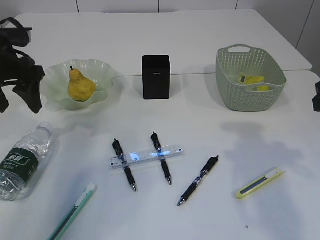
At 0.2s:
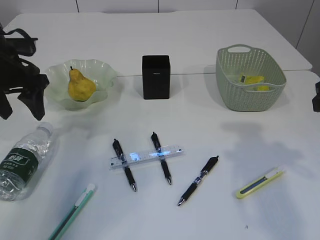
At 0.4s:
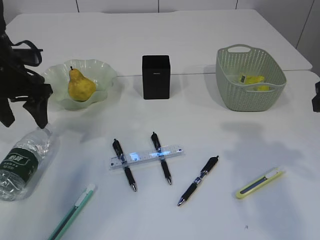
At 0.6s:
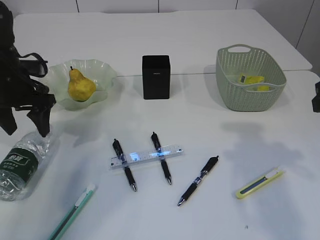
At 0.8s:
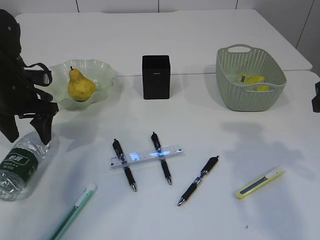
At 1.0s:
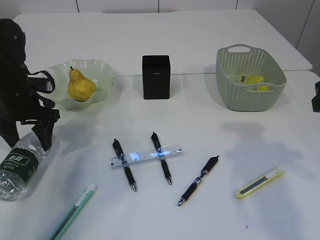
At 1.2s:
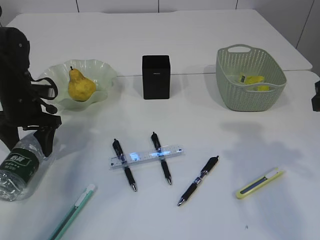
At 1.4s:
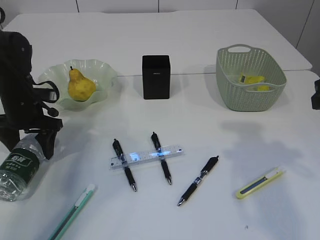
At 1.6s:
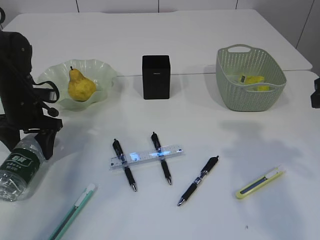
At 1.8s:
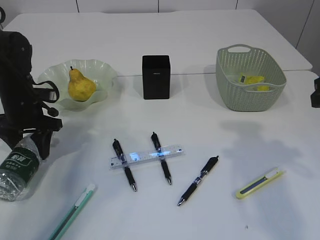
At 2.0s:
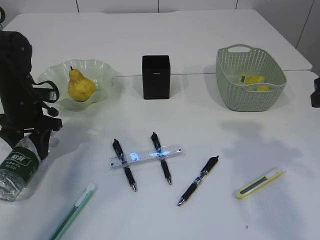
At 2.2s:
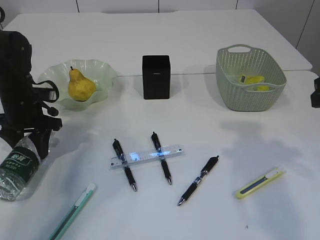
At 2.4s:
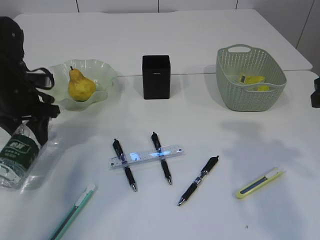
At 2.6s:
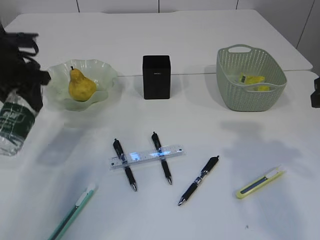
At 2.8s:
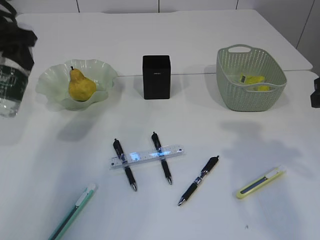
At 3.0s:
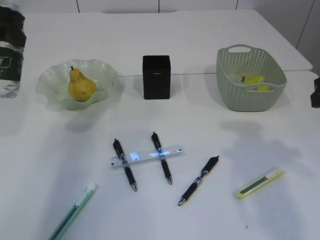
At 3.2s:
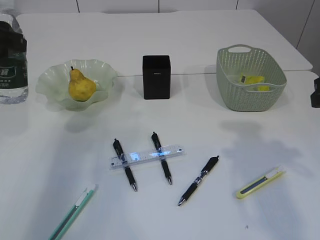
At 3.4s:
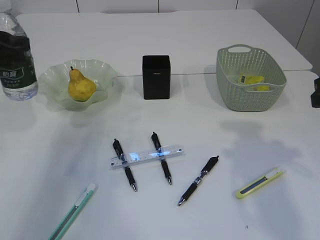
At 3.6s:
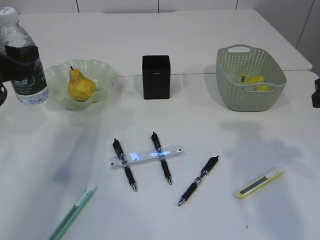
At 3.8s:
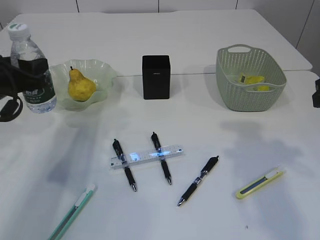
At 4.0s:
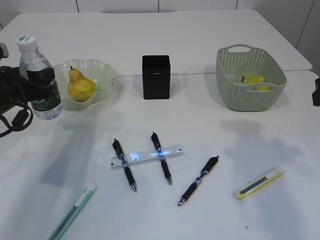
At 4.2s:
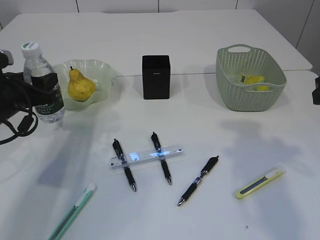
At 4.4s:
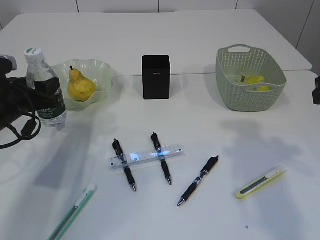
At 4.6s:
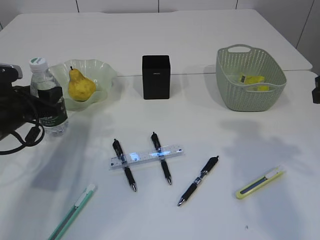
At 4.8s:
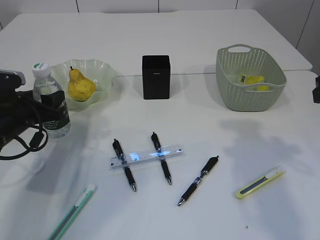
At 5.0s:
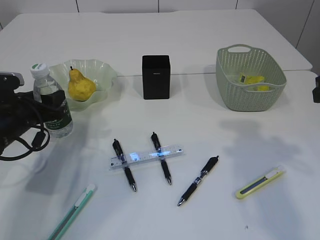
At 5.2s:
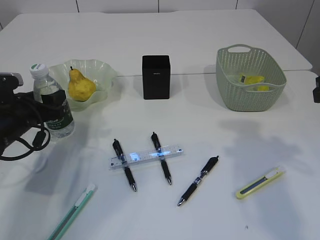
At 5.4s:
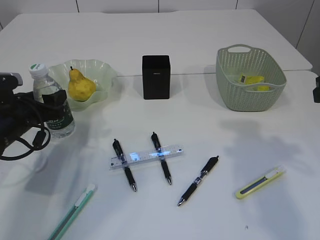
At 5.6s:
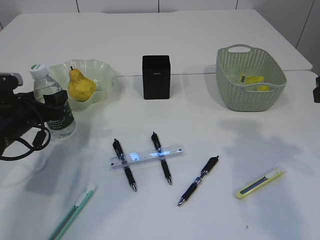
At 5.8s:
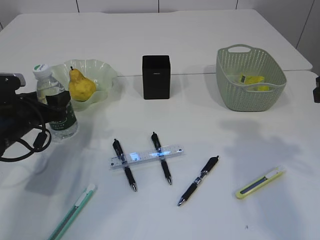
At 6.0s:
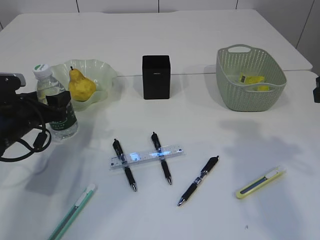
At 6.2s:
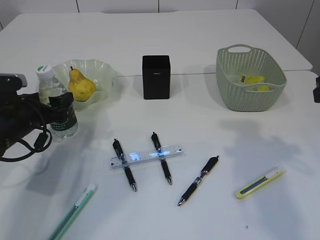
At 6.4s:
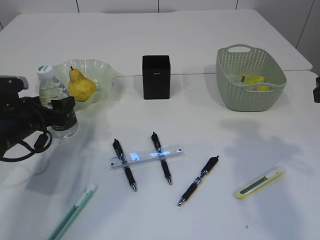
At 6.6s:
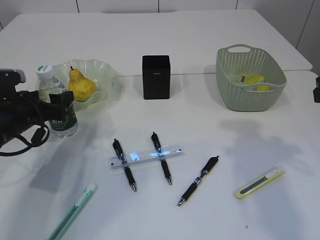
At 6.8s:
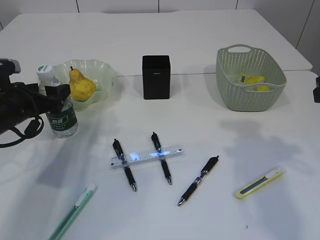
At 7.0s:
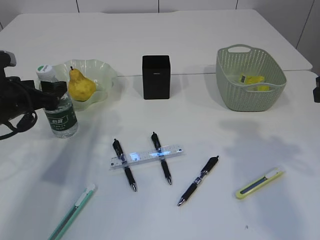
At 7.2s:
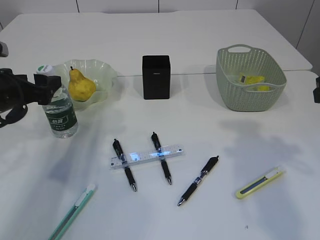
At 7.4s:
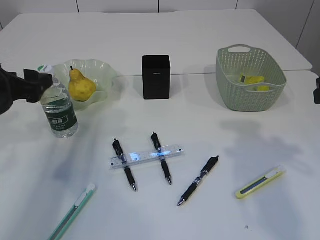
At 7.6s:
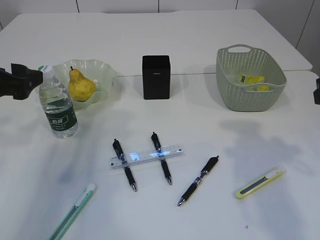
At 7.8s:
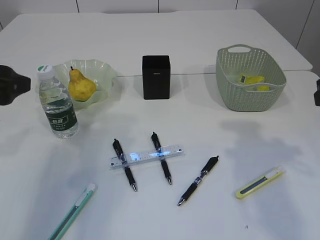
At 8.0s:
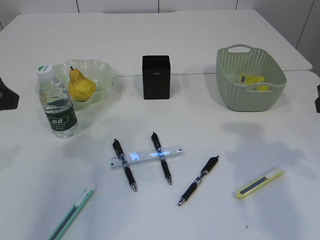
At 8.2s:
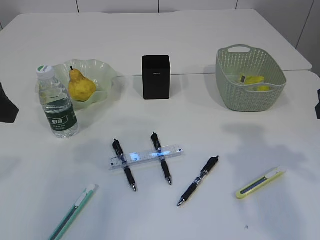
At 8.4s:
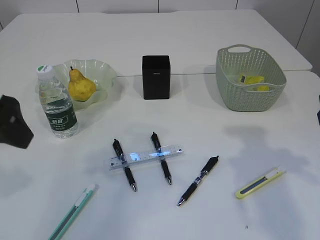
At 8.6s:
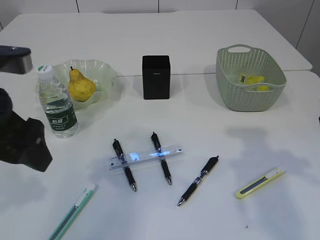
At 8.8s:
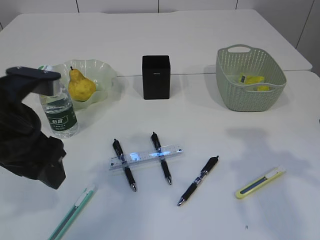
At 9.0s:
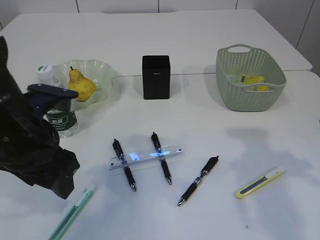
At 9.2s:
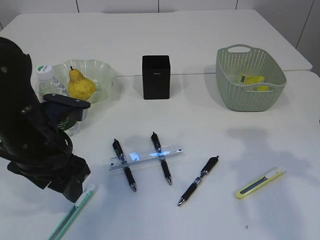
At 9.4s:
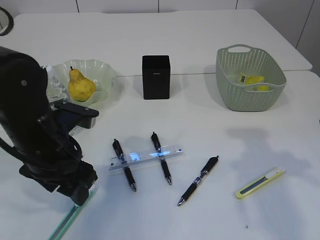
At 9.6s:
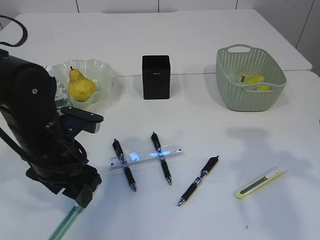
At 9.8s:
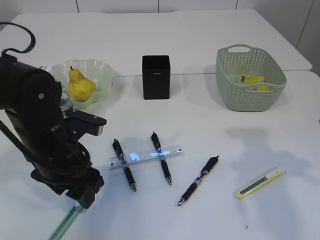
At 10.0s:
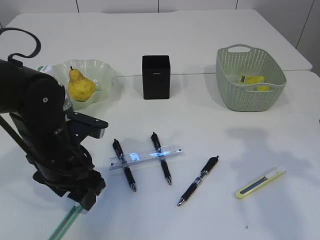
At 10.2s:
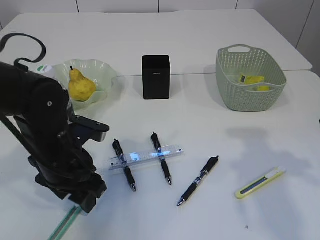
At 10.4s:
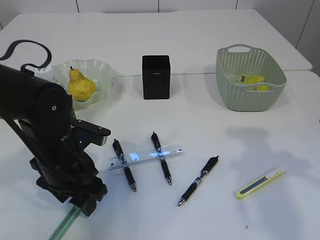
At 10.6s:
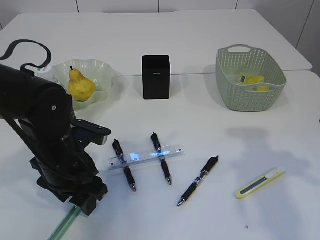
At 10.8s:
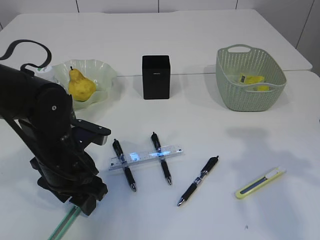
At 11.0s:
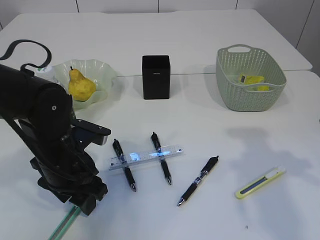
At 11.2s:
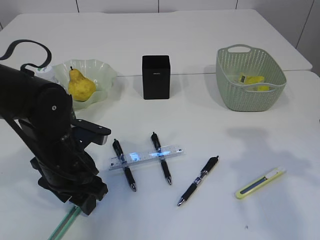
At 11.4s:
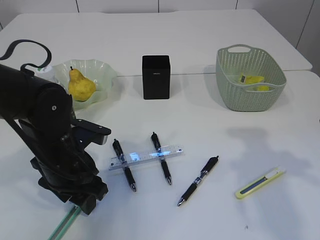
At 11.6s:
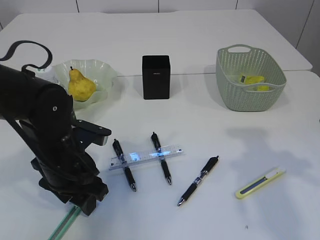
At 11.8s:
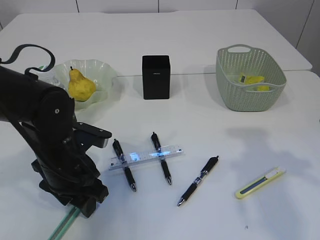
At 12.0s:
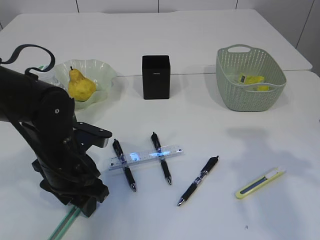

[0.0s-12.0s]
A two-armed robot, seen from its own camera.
Step, 0.0s to 2.4s: Pick up the bottle with the left arm.
Step, 2.6s to 7.8s: Place the bottle.
0.0s to 1.6s: The left gripper heads downward, covering about 15 cm.
1.6s to 3.0s: The left gripper travels upward by approximately 20 cm, and closes.
3.0s to 4.4s: The left gripper goes roughly 20 cm downward.
4.4s to 6.0s: The grippers move only a little.
6.0s to 7.6s: The left gripper is displaced upward by approximately 10 cm.
7.6s to 9.0s: The left gripper moves to the right and backward, approximately 10 cm.
9.0s to 10.4s: The left gripper is displaced downward by some 10 cm.
10.4s to 12.0s: Both grippers stay about where they are.

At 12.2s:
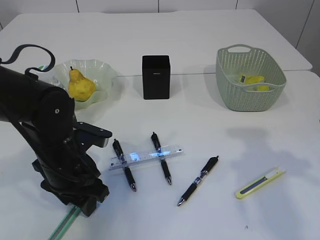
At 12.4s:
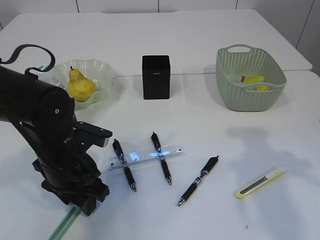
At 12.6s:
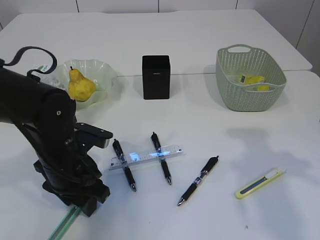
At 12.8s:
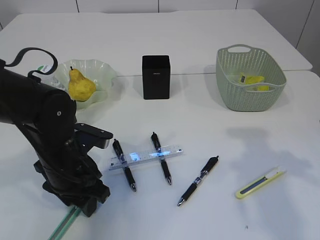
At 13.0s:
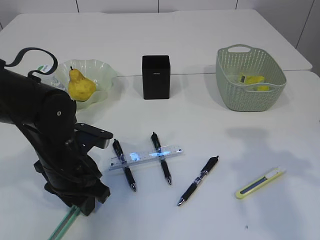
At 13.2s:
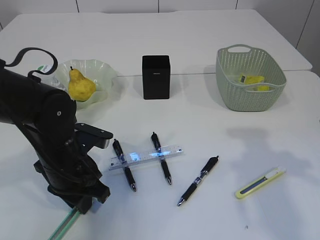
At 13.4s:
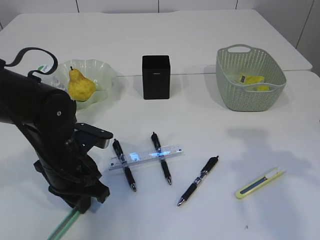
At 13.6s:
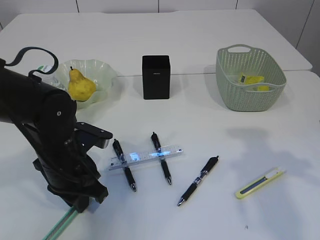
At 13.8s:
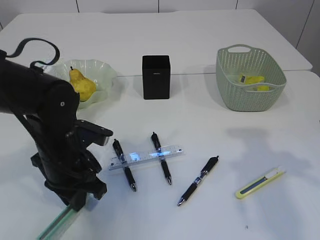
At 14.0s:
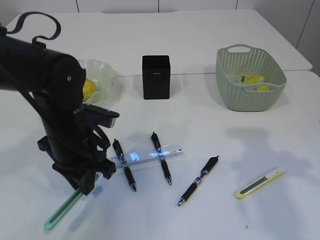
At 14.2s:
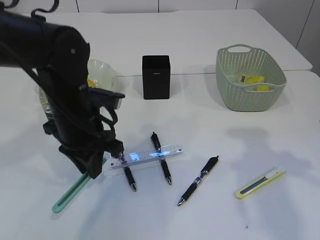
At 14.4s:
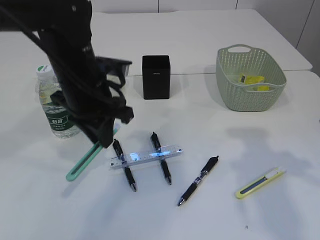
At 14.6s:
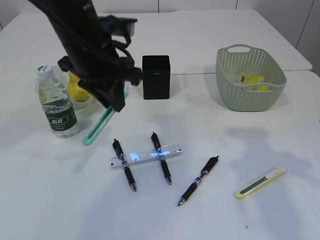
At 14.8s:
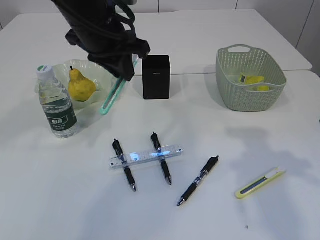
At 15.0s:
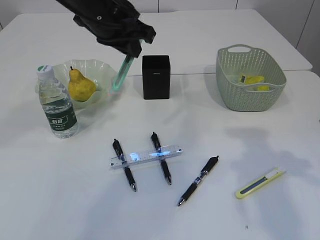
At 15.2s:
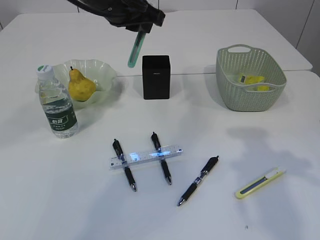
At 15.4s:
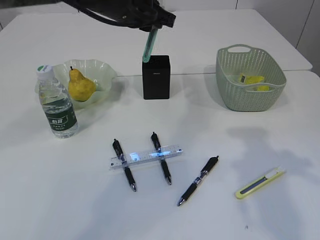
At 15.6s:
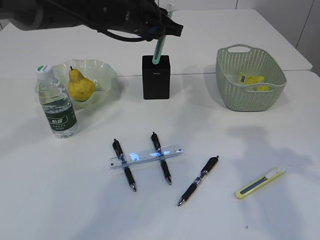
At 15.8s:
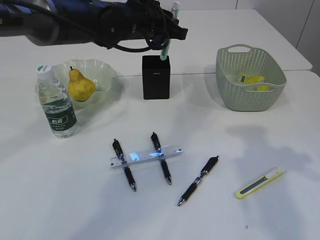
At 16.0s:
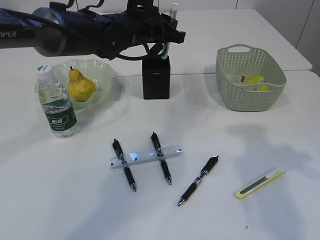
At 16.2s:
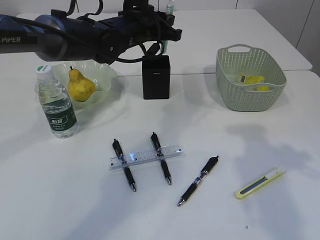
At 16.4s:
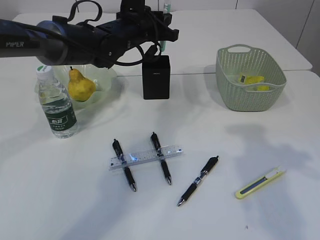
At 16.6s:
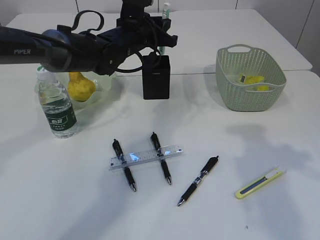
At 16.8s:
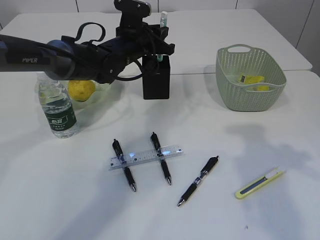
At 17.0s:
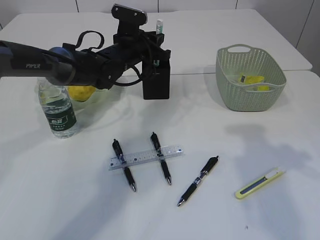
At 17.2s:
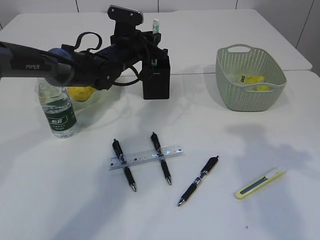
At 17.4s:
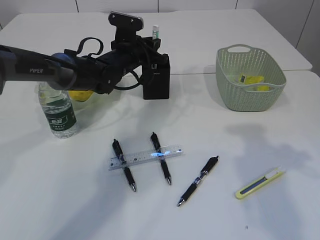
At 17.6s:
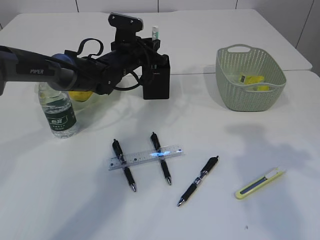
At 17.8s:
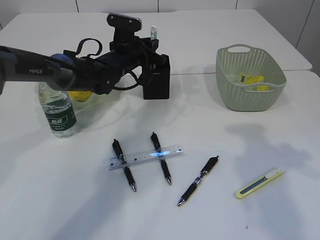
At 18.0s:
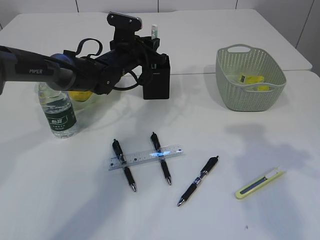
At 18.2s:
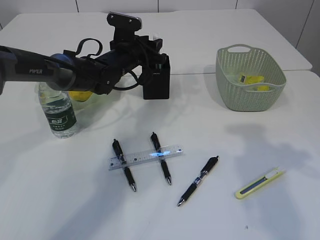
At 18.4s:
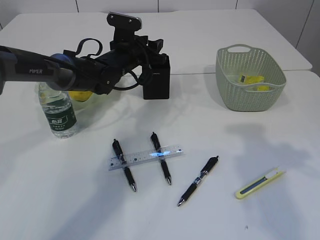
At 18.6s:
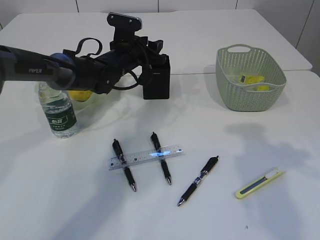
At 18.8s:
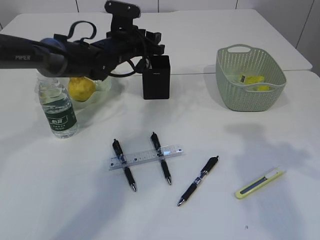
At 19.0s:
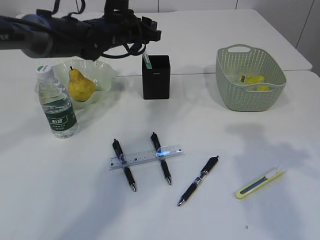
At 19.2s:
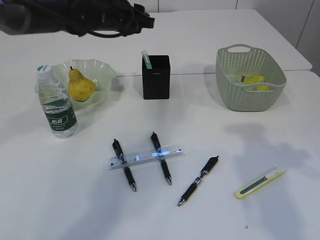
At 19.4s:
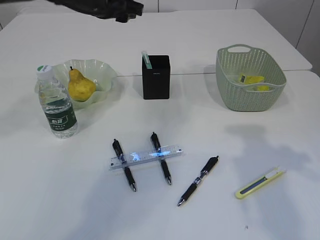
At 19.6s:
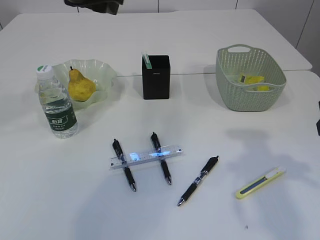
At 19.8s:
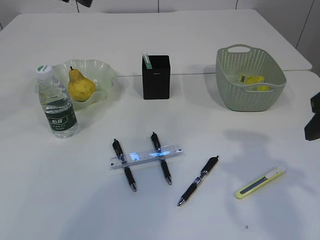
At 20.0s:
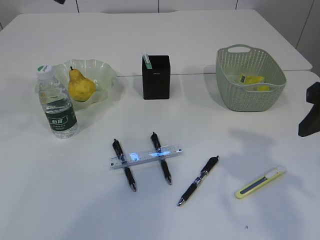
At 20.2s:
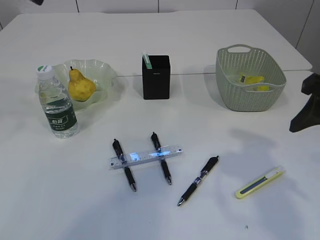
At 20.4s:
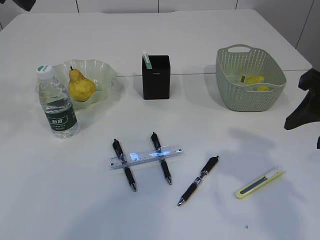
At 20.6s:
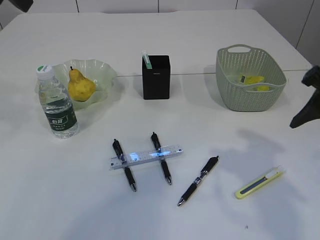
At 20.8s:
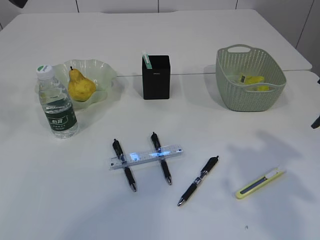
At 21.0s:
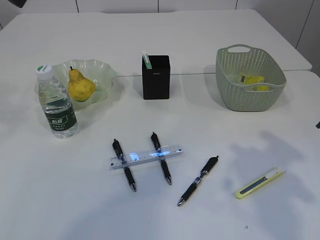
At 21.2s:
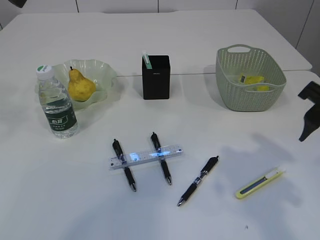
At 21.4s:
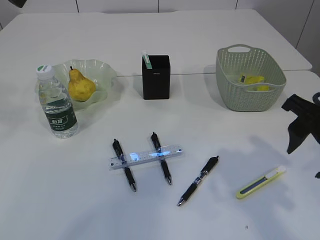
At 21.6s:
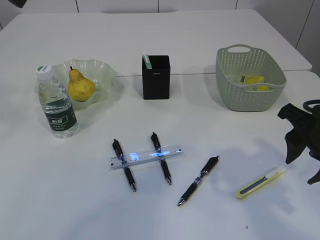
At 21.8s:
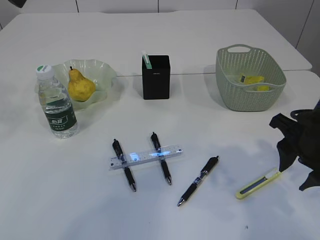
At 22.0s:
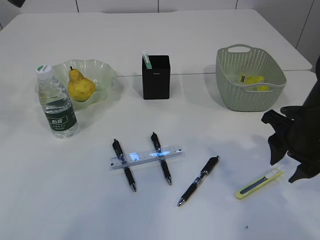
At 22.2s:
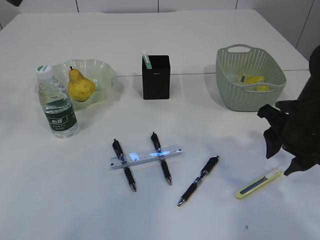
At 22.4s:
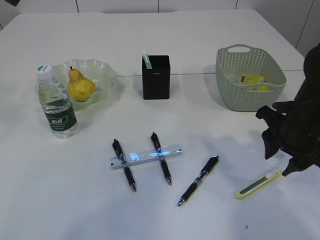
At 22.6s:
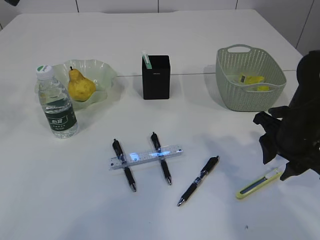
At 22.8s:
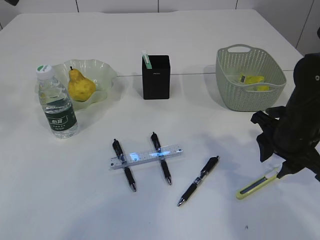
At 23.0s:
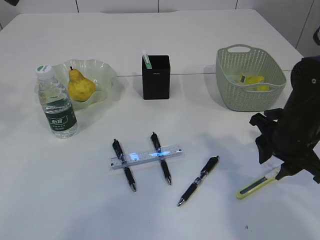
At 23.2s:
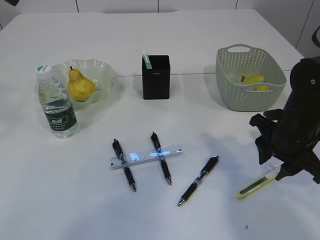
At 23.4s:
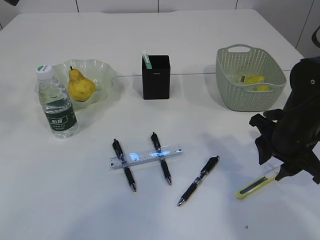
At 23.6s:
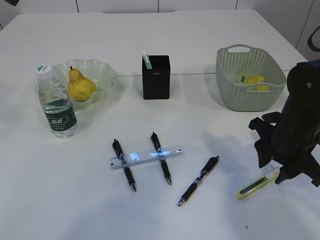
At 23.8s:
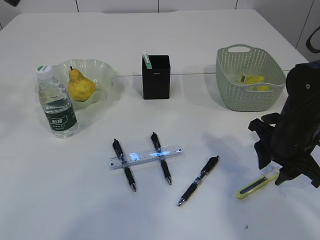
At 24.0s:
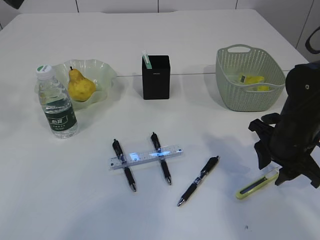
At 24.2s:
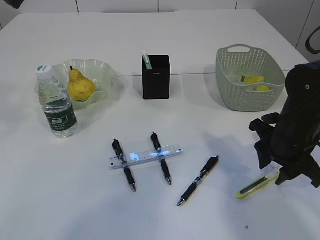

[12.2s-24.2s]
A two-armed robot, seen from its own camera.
Step, 14.2s to 19.0s: Place the blue knife into the pen holder.
12.2s to 13.8s: The left gripper closes.
13.8s to 15.2s: The left gripper is displaced upward and forward by about 25 cm.
15.2s to 16.6s: The left gripper shifts some 15 cm downward and forward.
16.6s to 18.2s: The left gripper shifts about 5 cm downward, and opens its fingers.
18.2s to 19.8s: The left gripper shifts roughly 25 cm upward and backward.
21.2s to 22.6s: The right gripper goes approximately 10 cm downward and forward.
22.6s to 24.2s: The grippers make only small movements.
